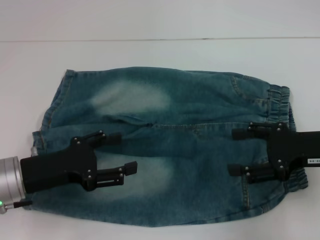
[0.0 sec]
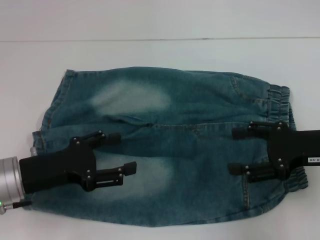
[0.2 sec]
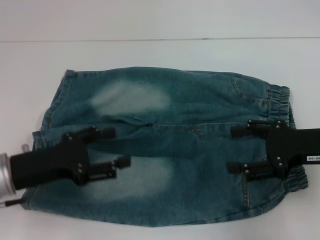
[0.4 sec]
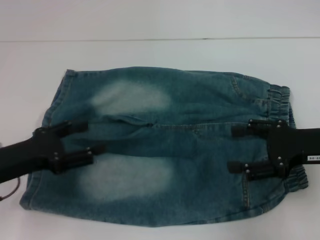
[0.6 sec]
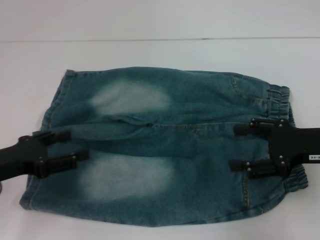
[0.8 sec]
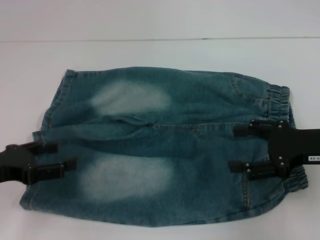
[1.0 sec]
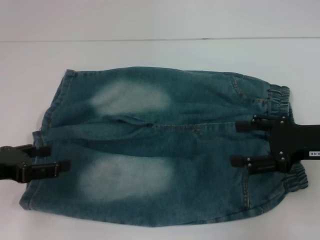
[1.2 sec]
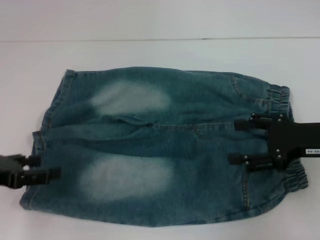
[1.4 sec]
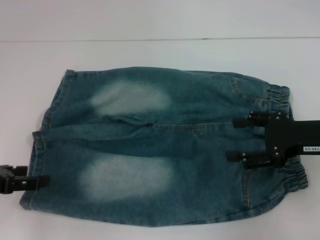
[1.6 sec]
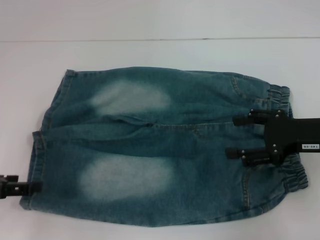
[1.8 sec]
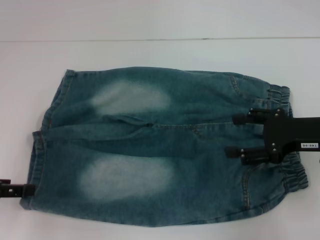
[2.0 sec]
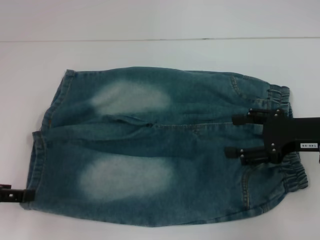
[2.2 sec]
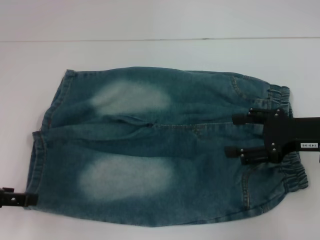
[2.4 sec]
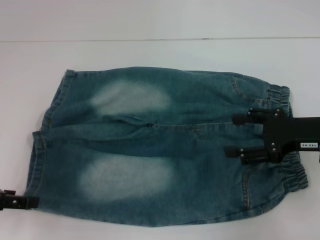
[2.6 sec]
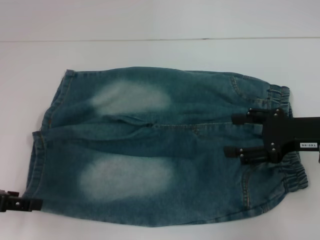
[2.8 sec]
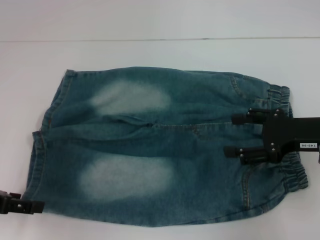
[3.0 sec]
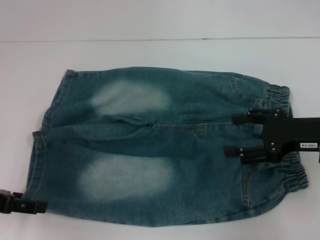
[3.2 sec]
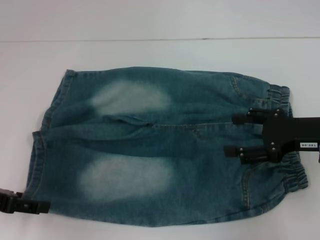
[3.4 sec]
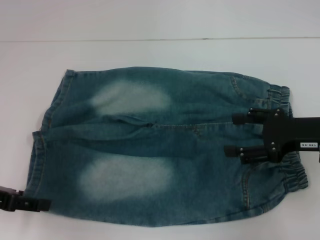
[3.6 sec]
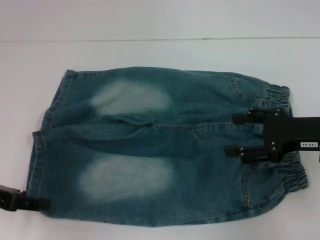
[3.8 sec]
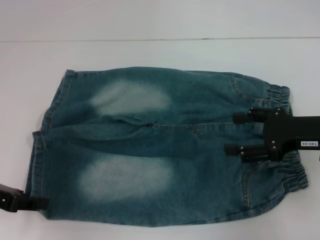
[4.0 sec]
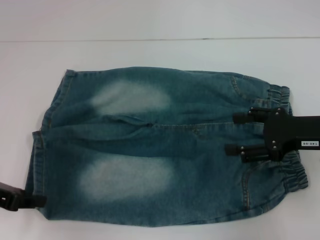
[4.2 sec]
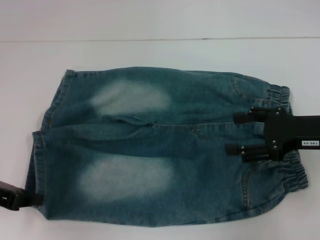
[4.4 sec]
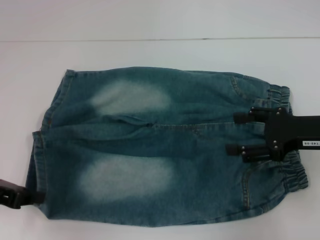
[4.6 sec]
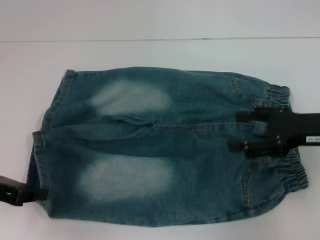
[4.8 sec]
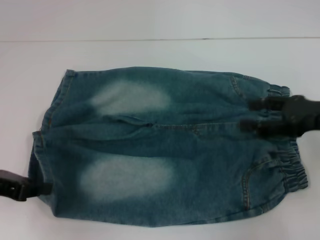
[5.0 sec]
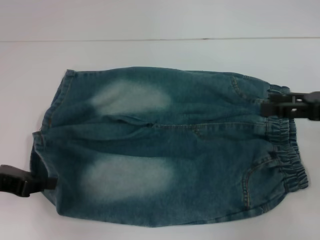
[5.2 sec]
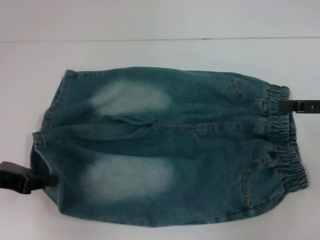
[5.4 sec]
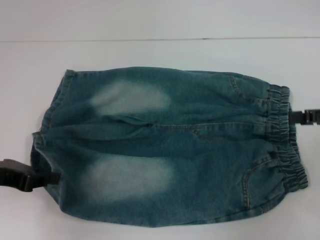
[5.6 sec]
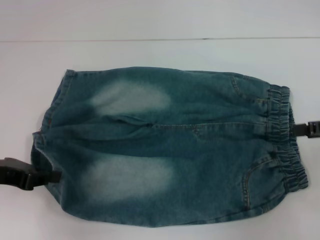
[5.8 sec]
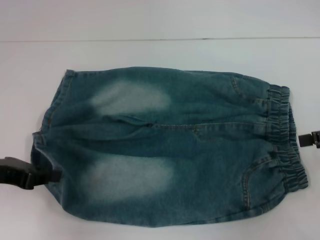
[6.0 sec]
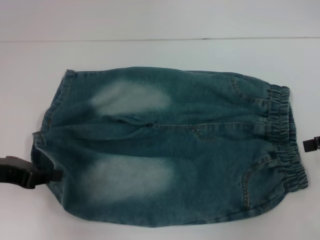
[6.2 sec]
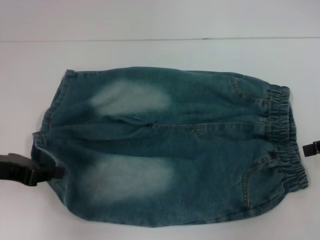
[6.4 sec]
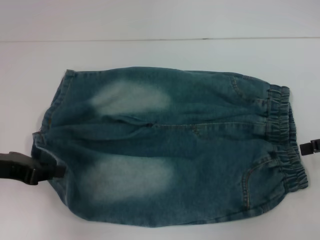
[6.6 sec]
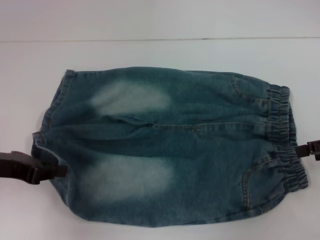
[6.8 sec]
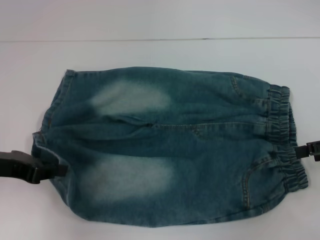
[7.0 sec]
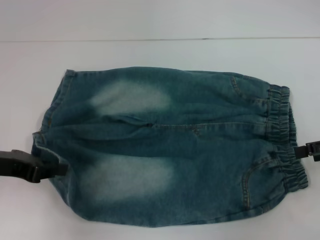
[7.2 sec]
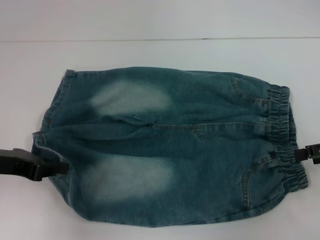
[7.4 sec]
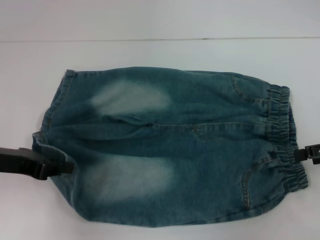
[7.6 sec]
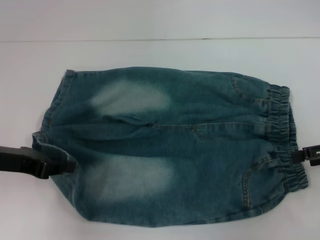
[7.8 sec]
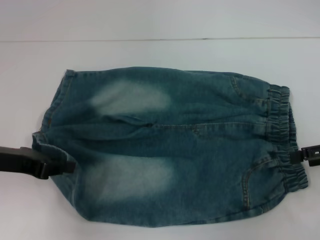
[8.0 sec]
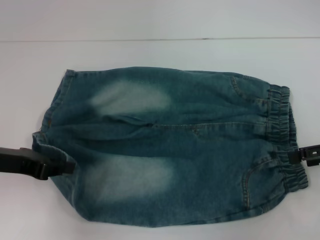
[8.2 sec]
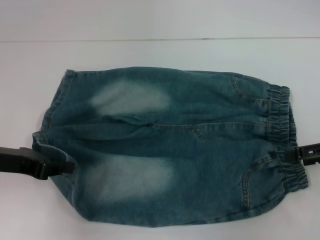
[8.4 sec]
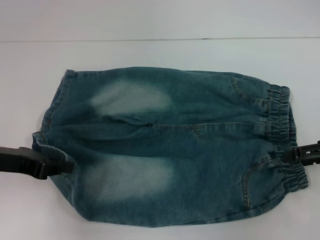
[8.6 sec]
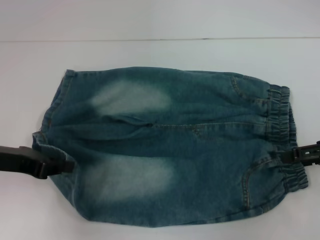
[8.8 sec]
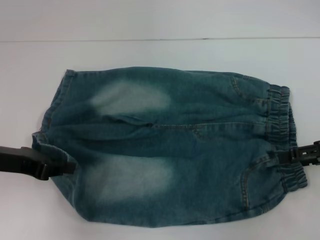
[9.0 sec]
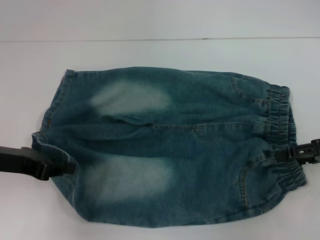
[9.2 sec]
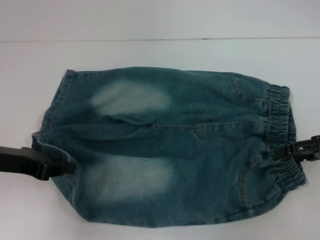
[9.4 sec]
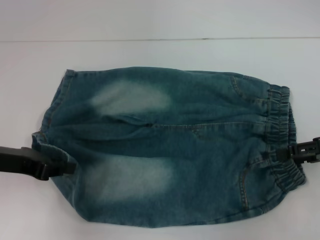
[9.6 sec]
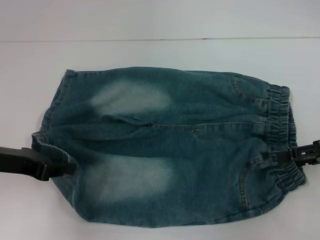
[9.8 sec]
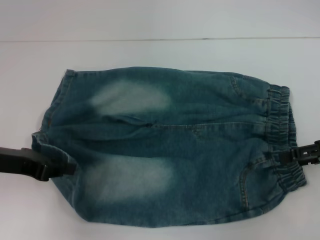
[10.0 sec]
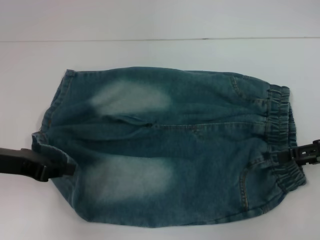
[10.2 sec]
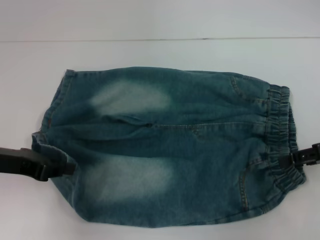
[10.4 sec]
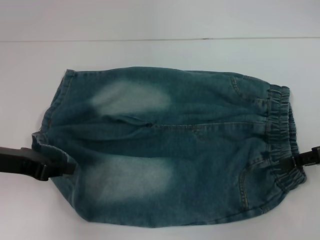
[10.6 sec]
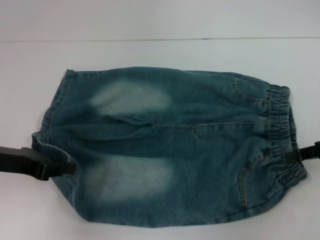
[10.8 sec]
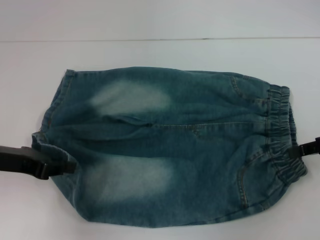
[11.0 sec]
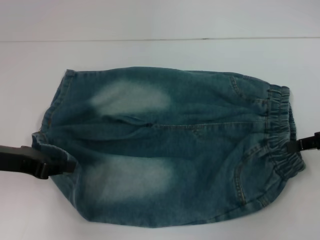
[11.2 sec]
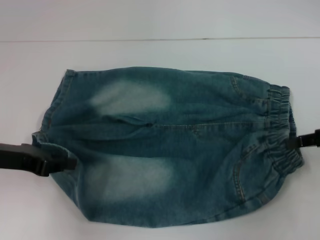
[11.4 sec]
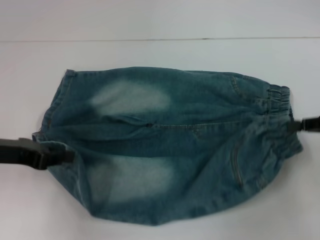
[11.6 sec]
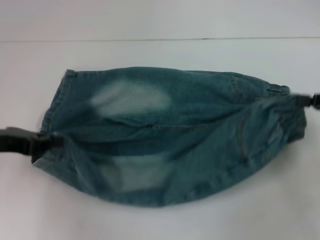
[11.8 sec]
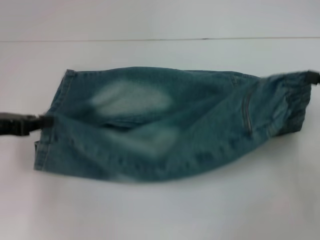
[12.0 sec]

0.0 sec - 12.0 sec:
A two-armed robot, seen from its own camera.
Step, 0.0 sec - 4.6 sec: Grab the lower left pant leg with your left hand.
Step, 4.8 sec - 10.6 sec: Hold the lower right waistband with your right hand.
0.0 sec - 1.6 sec: The left gripper travels to the left by some 10 cm.
1.6 sec - 3.0 sec: The grippers move only a little.
3.0 sec - 4.4 sec: The left gripper closes.
4.4 sec - 6.0 sec: The right gripper travels to the right by about 10 cm.
6.0 sec - 7.6 sec: The grippers make only small movements.
9.0 sec - 10.4 sec: Both grippers stay about where they are.
10.4 sec - 12.0 sec: The right gripper closes.

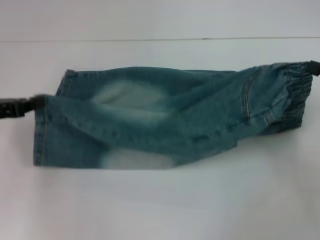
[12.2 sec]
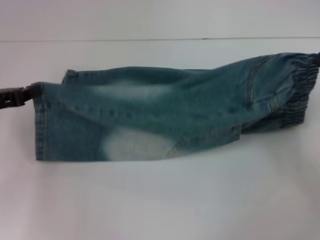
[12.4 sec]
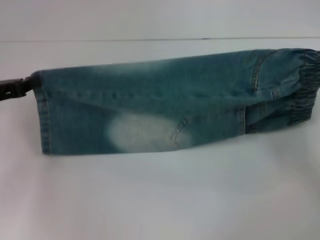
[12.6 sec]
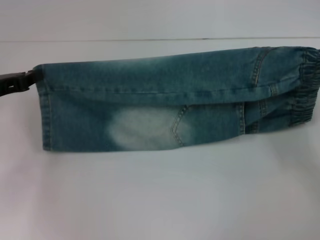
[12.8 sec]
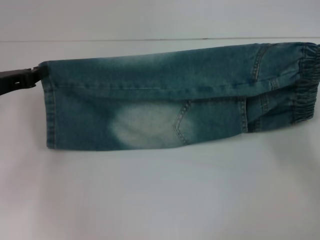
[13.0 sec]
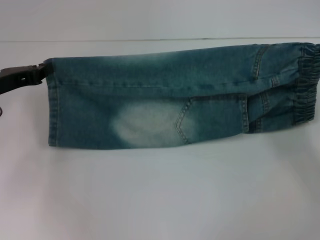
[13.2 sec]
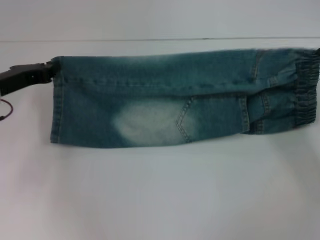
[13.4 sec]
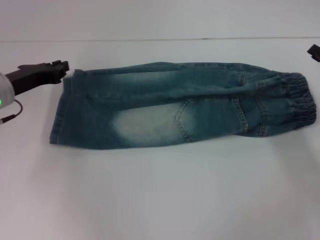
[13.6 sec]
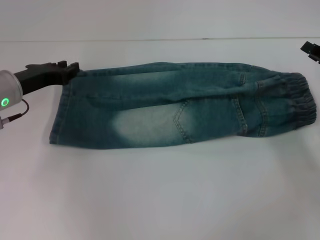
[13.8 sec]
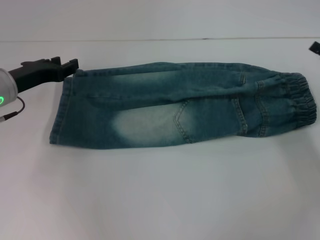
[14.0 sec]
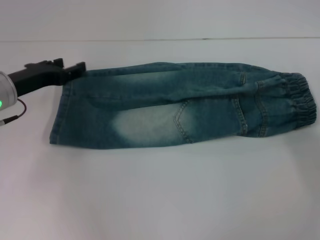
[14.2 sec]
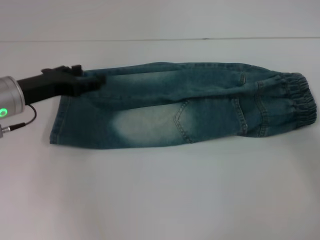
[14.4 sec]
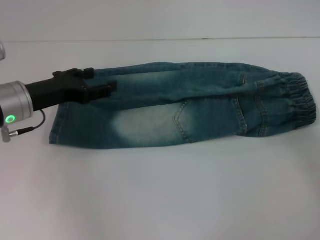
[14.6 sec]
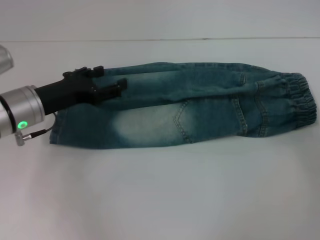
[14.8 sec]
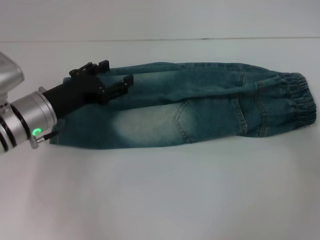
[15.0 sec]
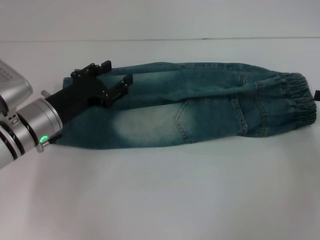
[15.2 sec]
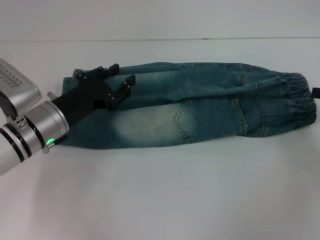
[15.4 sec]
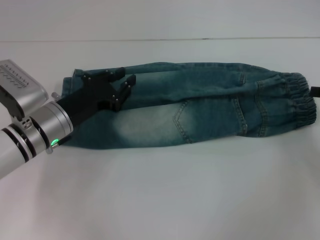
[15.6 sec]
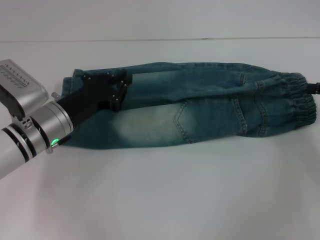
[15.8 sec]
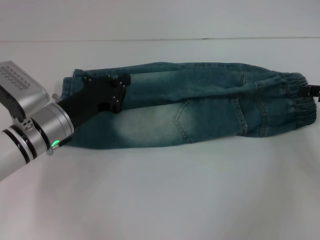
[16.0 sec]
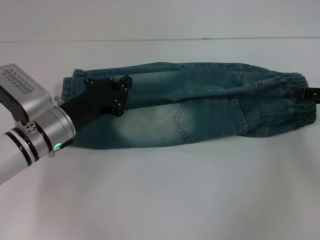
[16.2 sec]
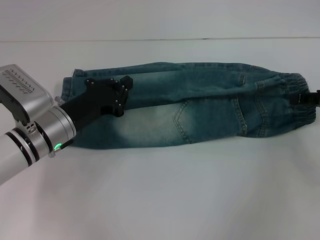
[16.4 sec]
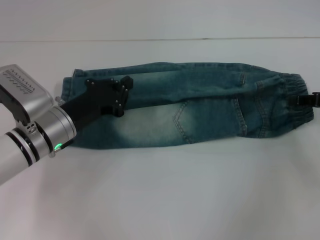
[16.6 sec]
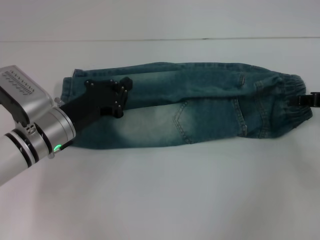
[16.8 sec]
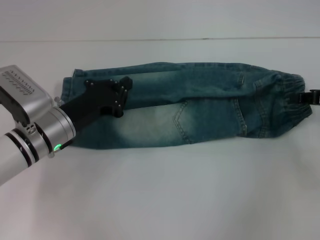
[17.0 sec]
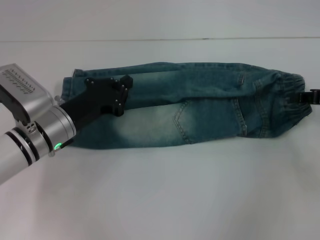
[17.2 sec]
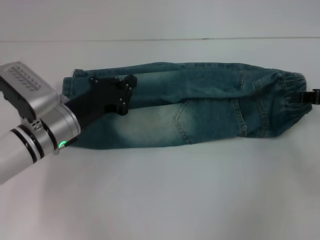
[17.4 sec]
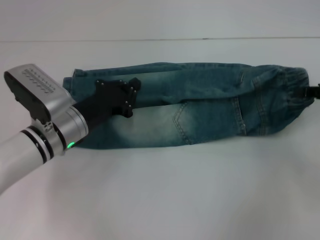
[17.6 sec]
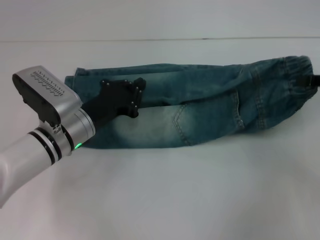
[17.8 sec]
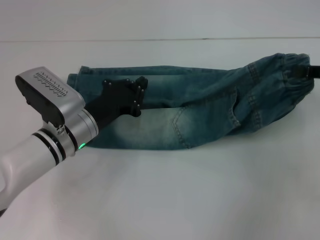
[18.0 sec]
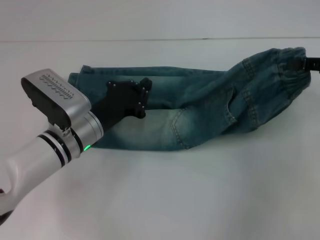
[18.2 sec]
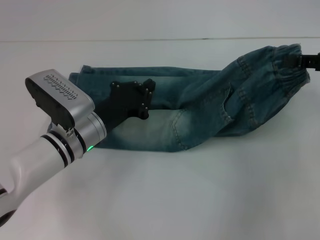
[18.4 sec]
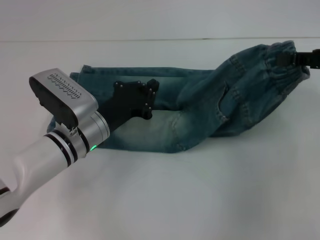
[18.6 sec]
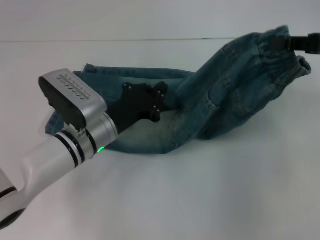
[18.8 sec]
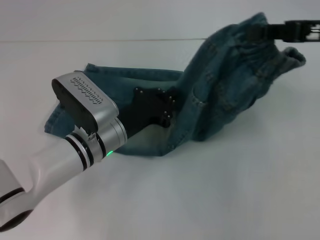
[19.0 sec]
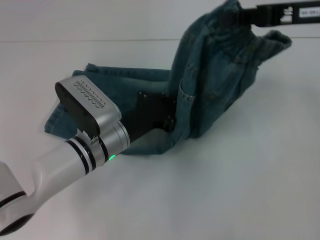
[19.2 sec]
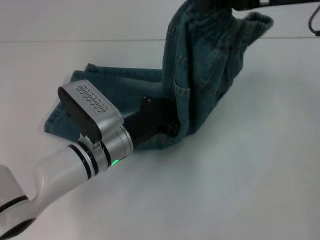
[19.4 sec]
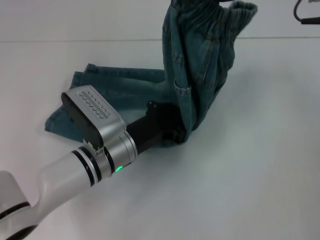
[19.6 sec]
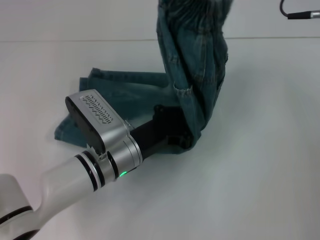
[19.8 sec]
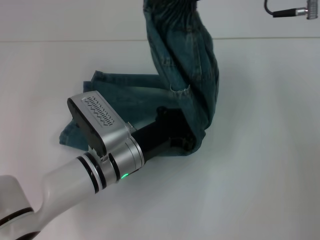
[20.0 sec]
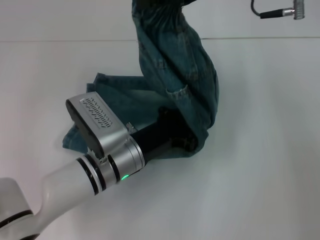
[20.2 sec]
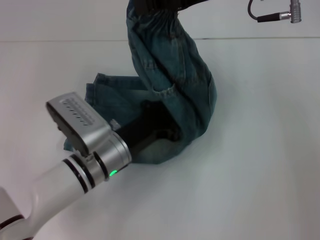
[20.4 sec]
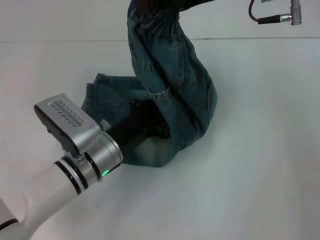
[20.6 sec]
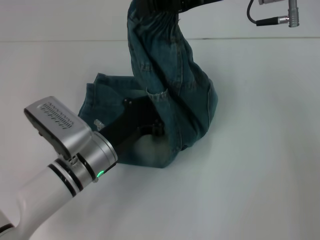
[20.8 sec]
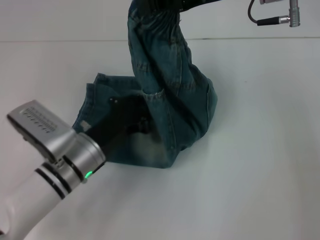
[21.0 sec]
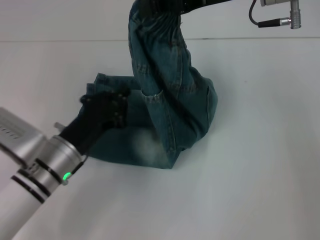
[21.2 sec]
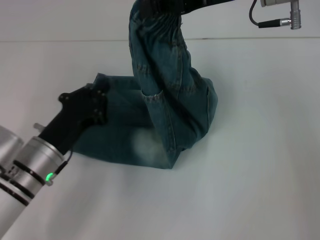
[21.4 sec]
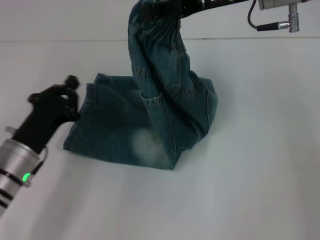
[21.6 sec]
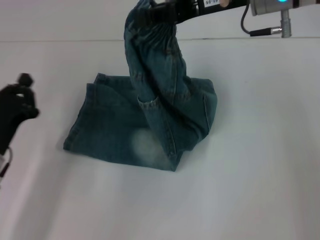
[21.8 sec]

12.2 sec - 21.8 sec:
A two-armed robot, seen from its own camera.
Step, 13.8 sec - 16.8 sec: Grab the waistband with your right hand.
Step, 17.0 sec - 20.4 sec: Press the middle of the pants with your left hand.
12.2 sec - 13.8 sec: The right gripper changes place by roughly 5 cm; the left gripper shifts about 10 cm forward and to the right.
13.8 sec - 15.4 sec: The grippers both shift to the right by some 5 cm. The left gripper opens its fingers, while the right gripper opens its fingers.
15.4 sec - 17.0 sec: The left gripper closes up; the right gripper changes place by roughly 5 cm, and closes up.
17.0 sec - 18.6 sec: The left gripper goes approximately 5 cm to the right. The right gripper travels upward by roughly 10 cm.
18.6 sec - 20.2 sec: The right gripper travels to the left and upward by roughly 20 cm. The left gripper ends up approximately 5 cm from where it was.
20.2 sec - 21.8 sec: The left gripper goes roughly 15 cm to the left.
